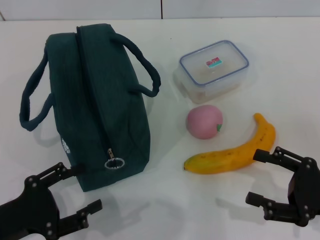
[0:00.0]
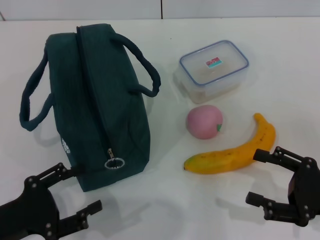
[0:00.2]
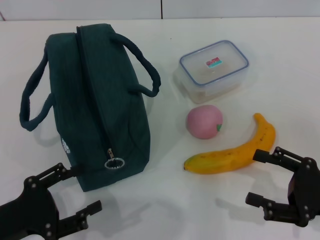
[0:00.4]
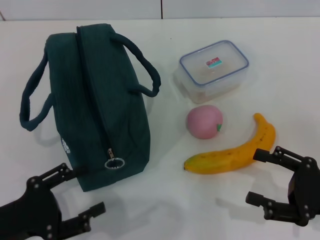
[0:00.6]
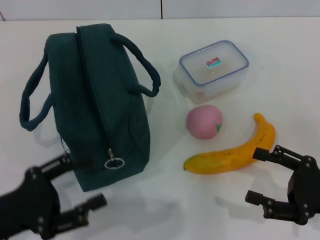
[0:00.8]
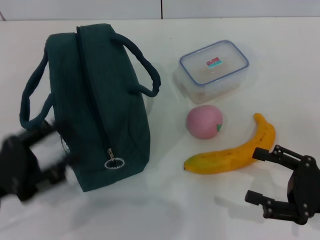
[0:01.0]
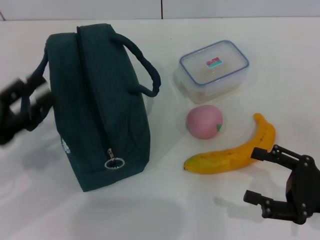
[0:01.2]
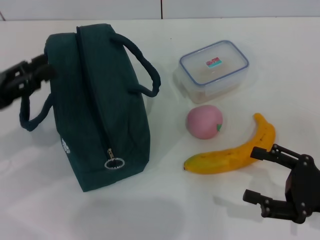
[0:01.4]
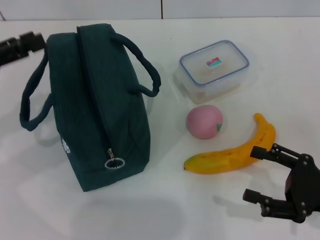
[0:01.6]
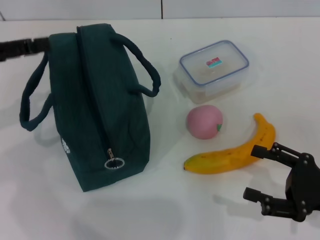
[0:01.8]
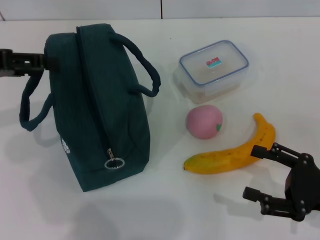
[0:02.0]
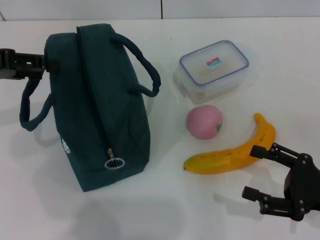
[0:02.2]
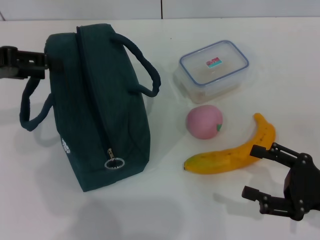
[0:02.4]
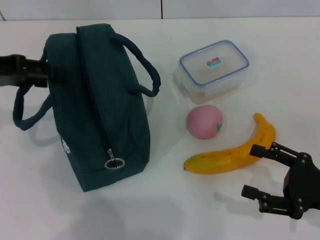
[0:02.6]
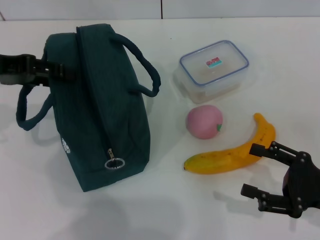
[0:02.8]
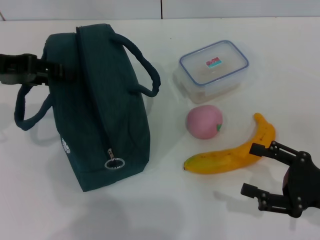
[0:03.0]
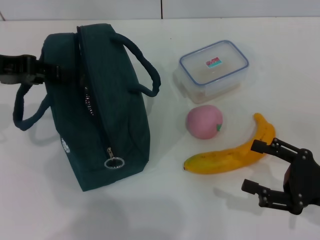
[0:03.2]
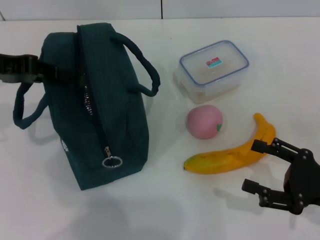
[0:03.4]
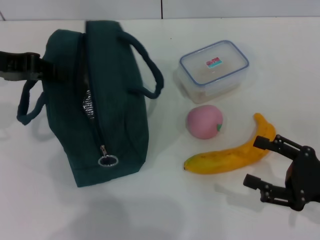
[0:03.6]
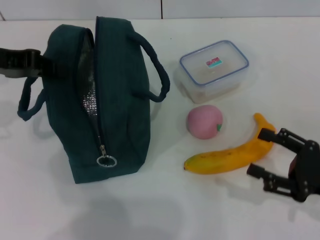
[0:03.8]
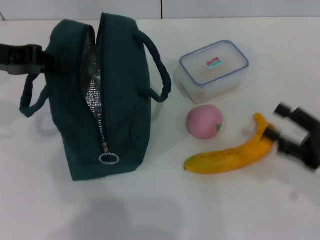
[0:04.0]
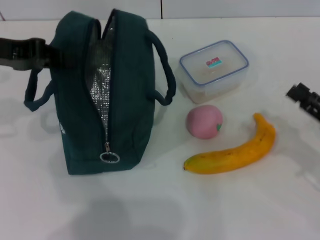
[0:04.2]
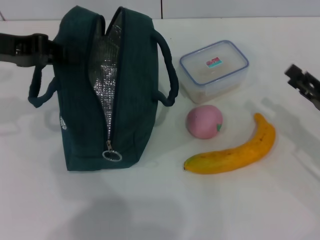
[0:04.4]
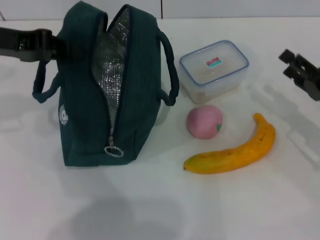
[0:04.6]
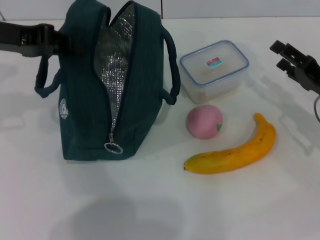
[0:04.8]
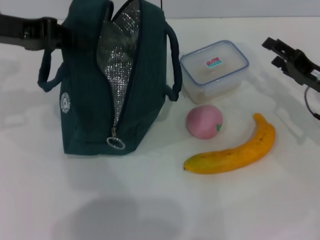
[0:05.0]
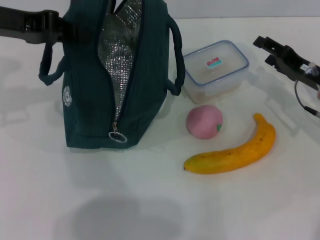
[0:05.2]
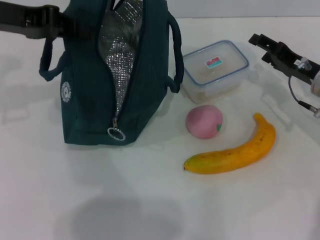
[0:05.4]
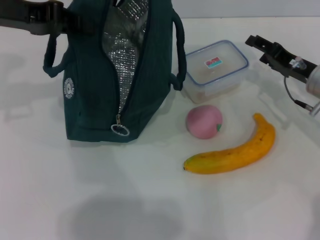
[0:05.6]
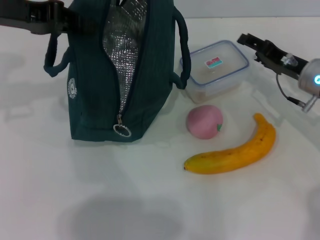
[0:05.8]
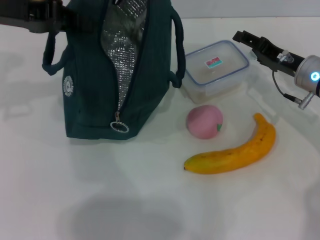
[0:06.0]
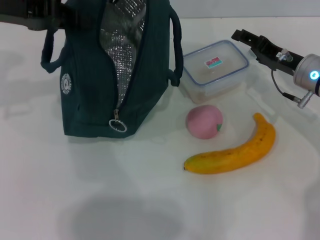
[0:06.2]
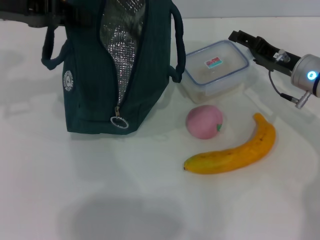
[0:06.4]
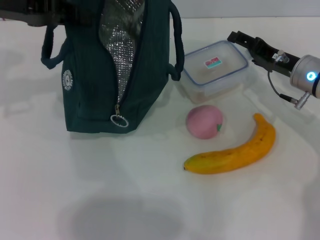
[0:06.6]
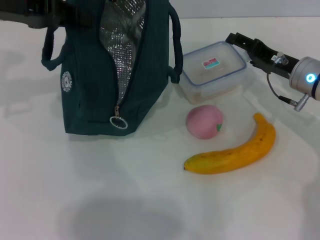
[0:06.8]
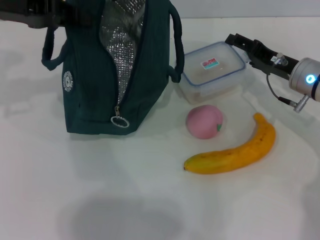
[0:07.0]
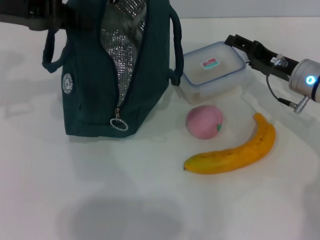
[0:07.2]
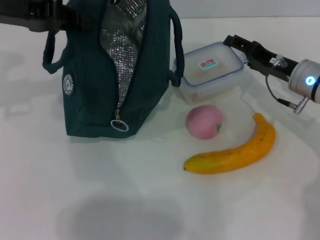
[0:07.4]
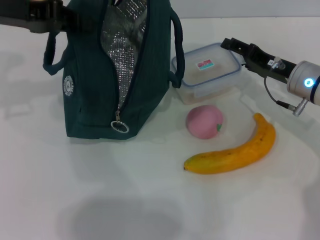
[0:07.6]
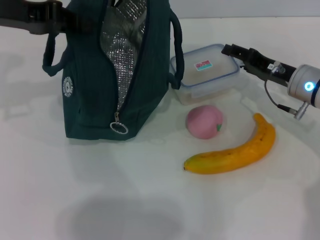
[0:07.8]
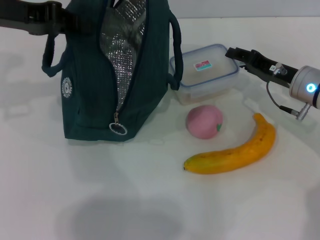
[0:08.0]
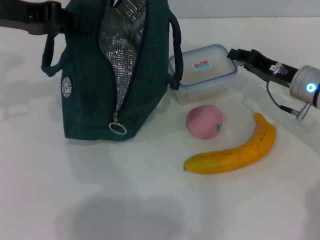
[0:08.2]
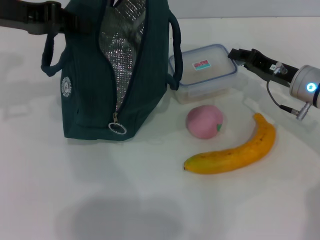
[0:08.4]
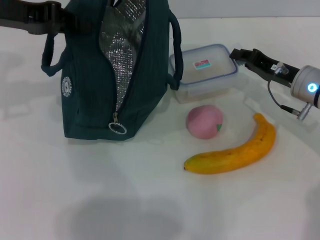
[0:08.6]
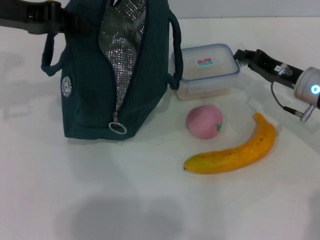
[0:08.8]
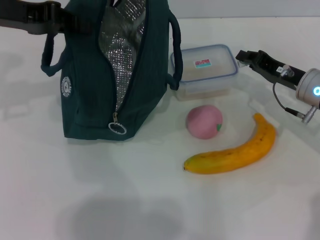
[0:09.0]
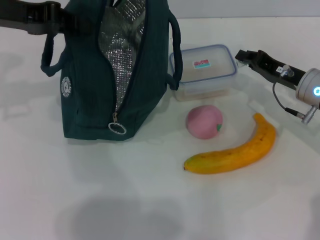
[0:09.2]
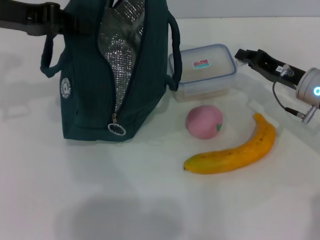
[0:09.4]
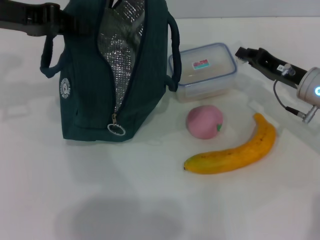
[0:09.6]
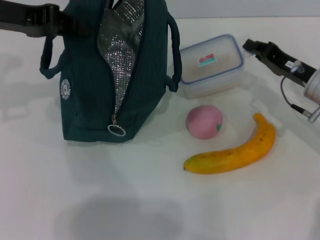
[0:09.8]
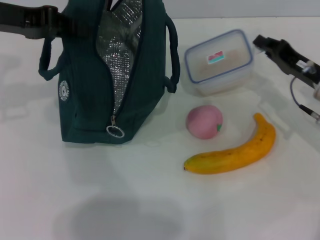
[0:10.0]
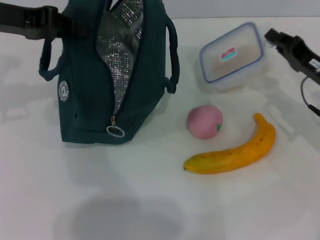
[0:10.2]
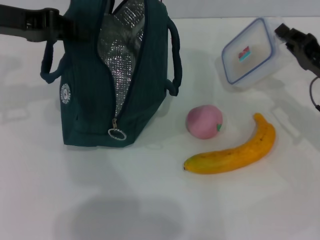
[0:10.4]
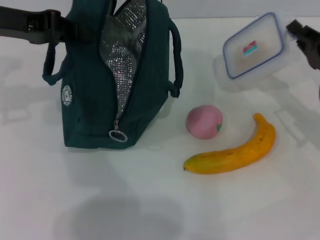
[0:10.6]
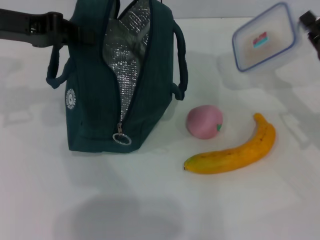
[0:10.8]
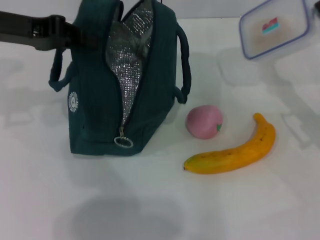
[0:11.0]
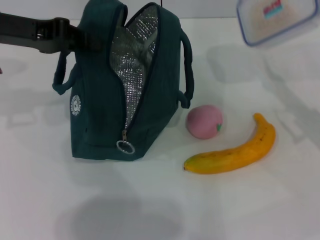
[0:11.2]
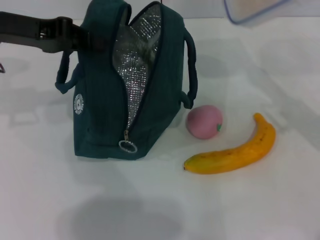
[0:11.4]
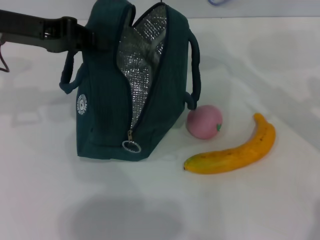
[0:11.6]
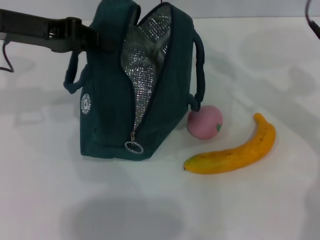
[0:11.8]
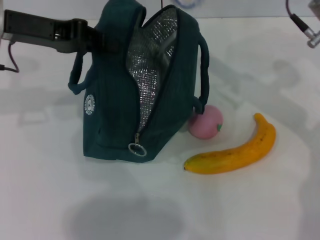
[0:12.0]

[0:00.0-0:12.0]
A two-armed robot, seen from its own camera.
Step, 0:00.0 to 0:03.6: Hold the lunch bag with your left hand.
Step, 0:04.0 to 0:09.8: Pick up the lunch box with your right hand.
0:00.0 to 0:01.6: The left gripper goes some 20 cm upward and forward.
0:01.6 to 0:03.0: The left gripper shifts approximately 5 cm forward.
0:03.0 to 0:04.4: The right gripper heads forward, covering about 5 cm, while the left gripper closes.
0:04.4 to 0:06.0: The right gripper heads forward and to the left, covering approximately 15 cm.
0:06.0 to 0:07.6: The grippers move only a little.
0:07.6 to 0:09.0: The right gripper closes its fingers.
0:09.0 to 0:10.4: The right gripper ends up some 5 cm from where it was.
0:10.4 to 0:12.0: The right gripper heads upward and to the left, covering roughly 15 cm.

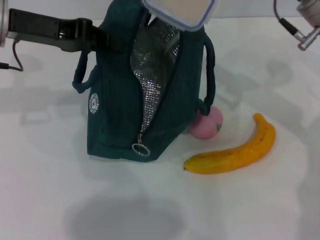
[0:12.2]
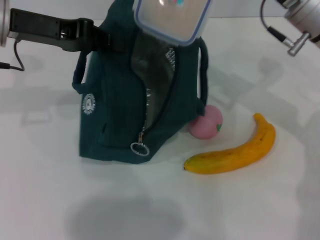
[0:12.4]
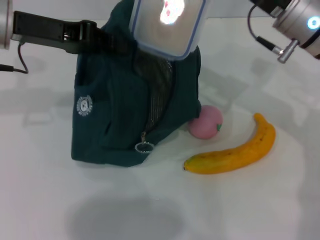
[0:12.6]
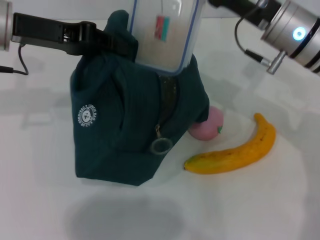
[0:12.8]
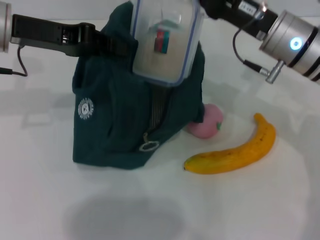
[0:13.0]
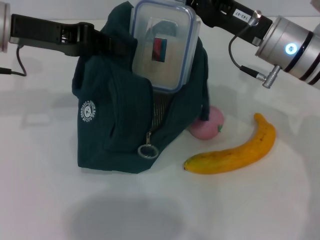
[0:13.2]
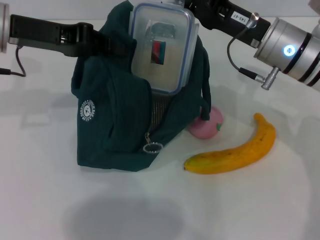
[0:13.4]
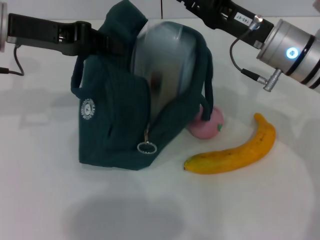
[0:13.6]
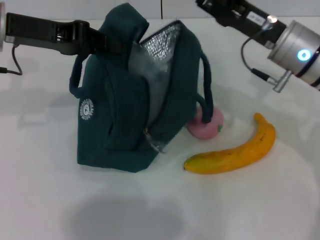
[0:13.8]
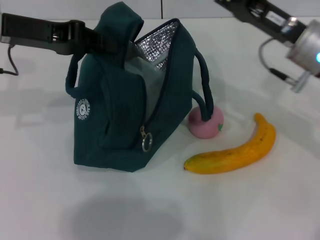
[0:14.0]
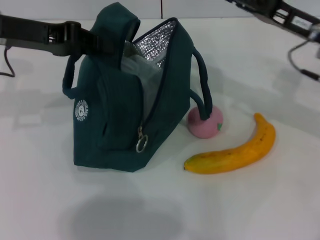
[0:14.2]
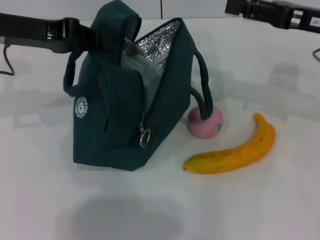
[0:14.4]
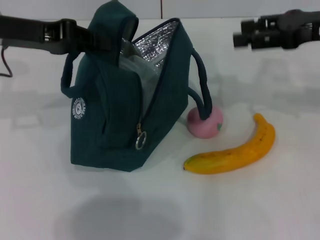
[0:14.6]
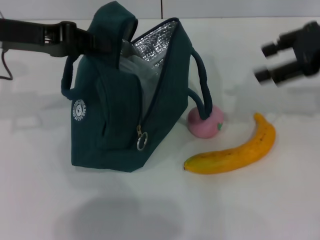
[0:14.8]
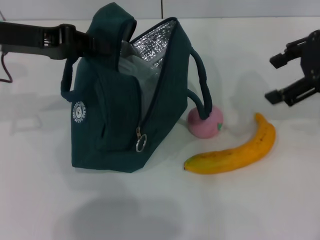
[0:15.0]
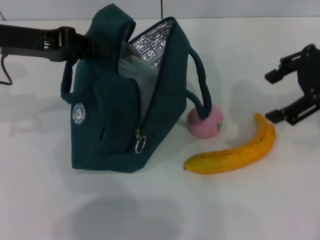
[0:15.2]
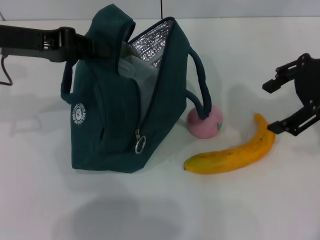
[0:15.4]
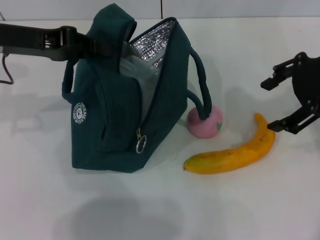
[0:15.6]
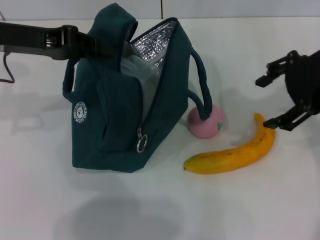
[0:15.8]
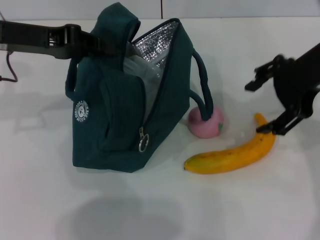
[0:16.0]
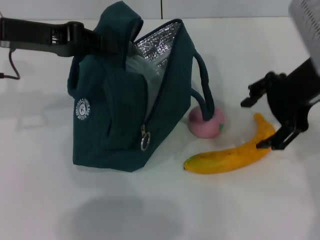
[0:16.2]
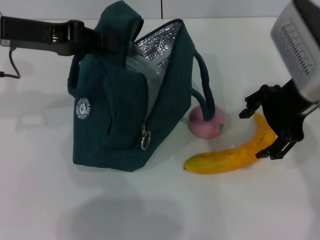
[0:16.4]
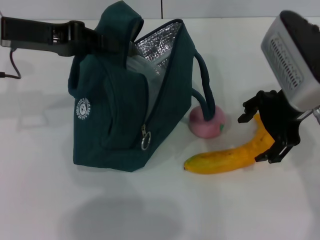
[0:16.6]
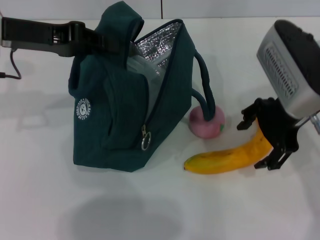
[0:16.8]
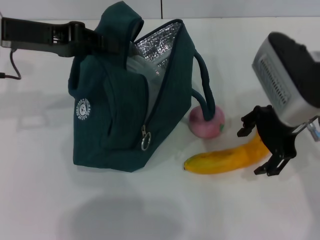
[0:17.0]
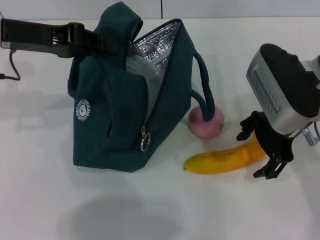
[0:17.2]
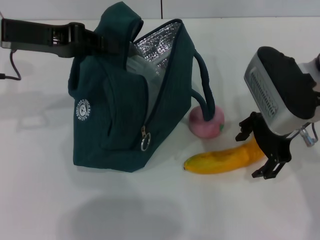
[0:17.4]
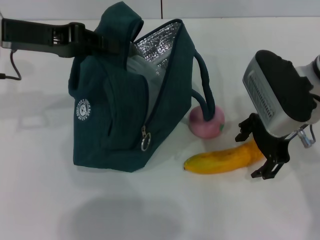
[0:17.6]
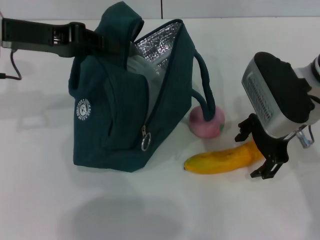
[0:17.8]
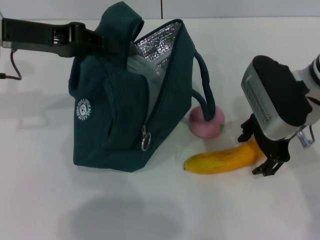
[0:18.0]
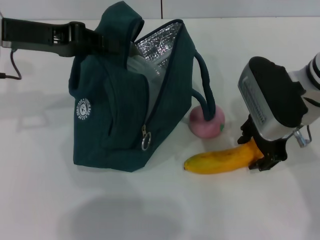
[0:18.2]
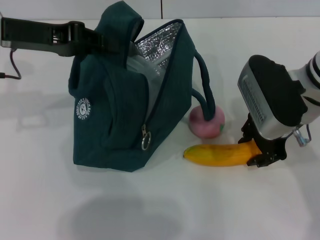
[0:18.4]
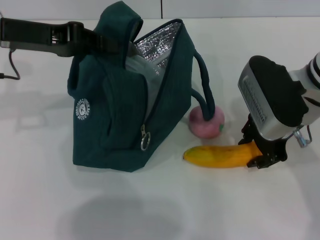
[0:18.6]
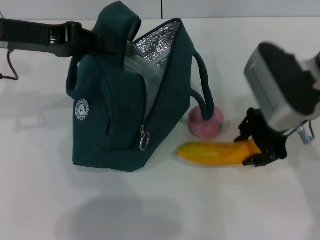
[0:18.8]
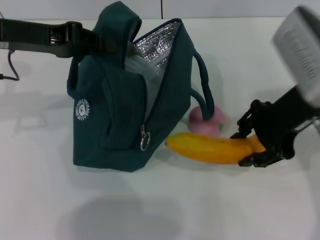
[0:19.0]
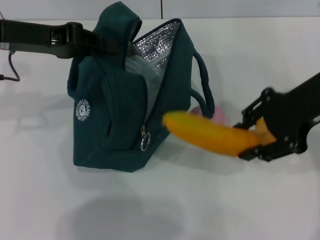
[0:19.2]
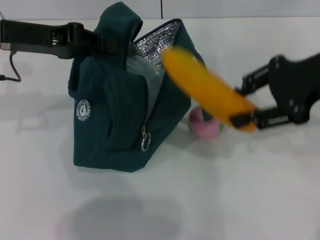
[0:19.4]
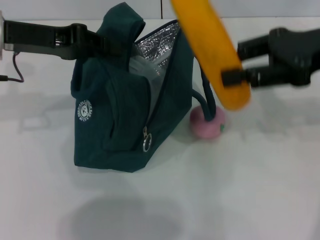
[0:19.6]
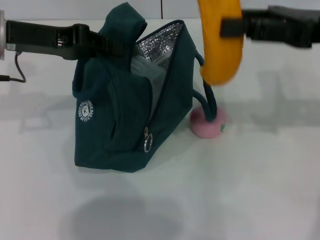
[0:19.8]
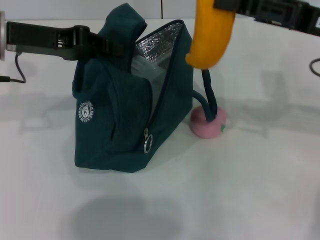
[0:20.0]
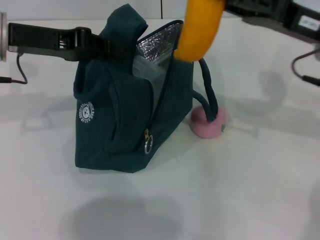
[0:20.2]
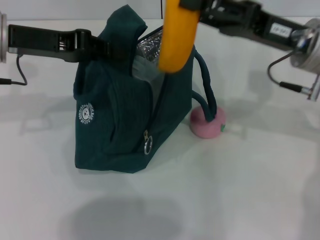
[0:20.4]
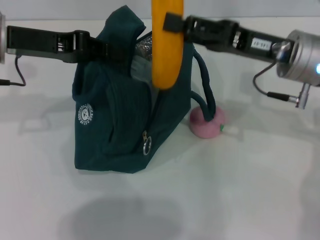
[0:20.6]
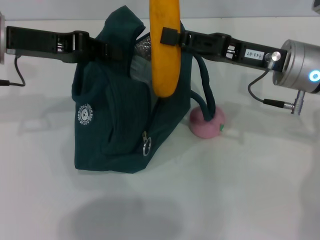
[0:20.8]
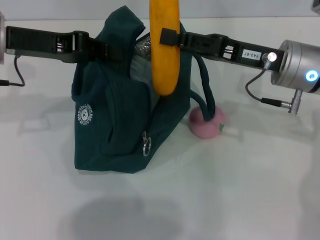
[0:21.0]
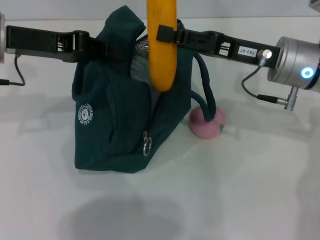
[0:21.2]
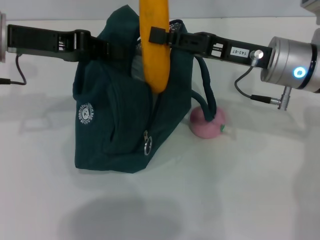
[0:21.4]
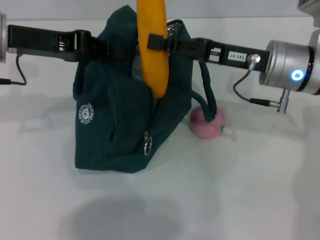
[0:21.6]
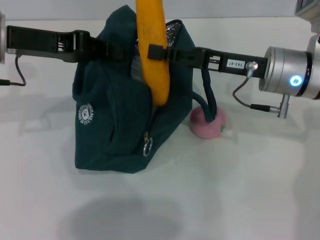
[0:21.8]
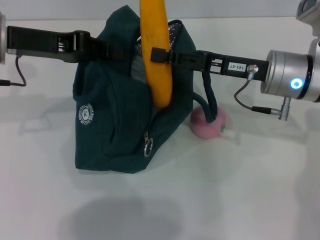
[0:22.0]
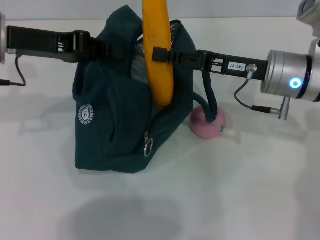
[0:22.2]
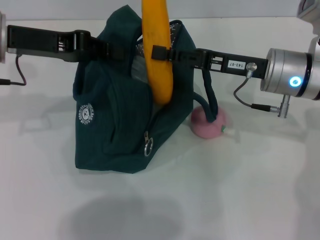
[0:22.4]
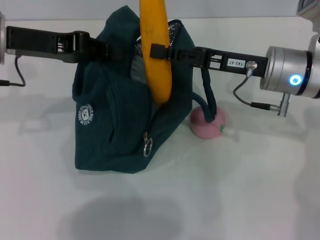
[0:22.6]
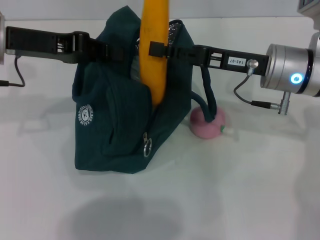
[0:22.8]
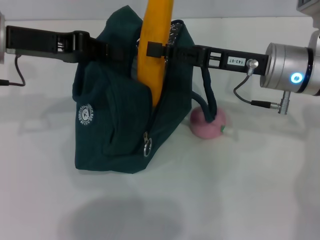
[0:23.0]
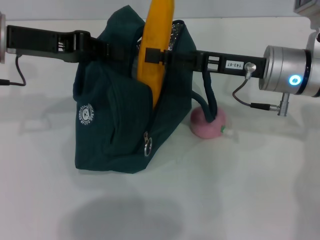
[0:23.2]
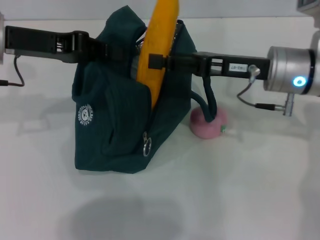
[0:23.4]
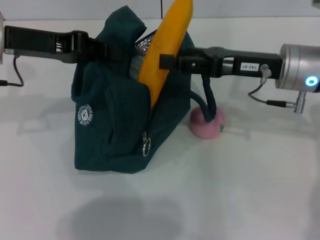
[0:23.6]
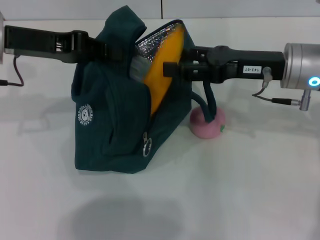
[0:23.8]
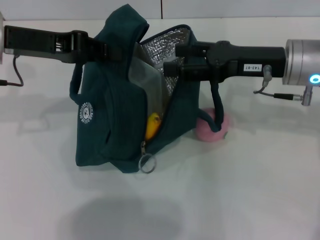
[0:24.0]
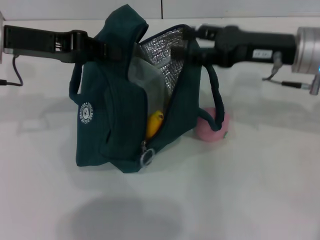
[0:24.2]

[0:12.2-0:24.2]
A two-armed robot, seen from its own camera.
Step, 0:13.8 to 0:18.2: Take the banana with your right hand.
Step, 0:18.4 to 0:23.8: Put the banana into the lunch bag with your right hand.
0:12.2 to 0:13.8: The grippers move only a little.
0:13.8 to 0:15.2: The right gripper moves upward and to the right, about 15 cm, and opens.
0:15.2 to 0:16.6: The right gripper moves to the left, some 5 cm.
0:16.6 to 0:18.2: The right gripper heads downward, covering roughly 5 cm.
0:18.2 to 0:19.8: The right gripper heads to the right and upward, covering roughly 10 cm, and closes up.
0:19.8 to 0:21.2: The right gripper travels downward and to the left by approximately 10 cm.
0:21.2 to 0:22.6: The grippers move only a little.
0:22.6 to 0:24.2: The right gripper opens its fingers.
